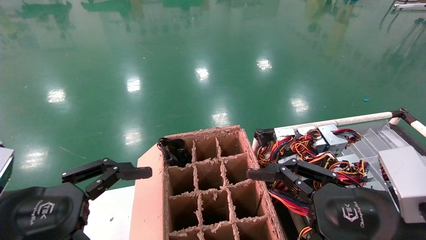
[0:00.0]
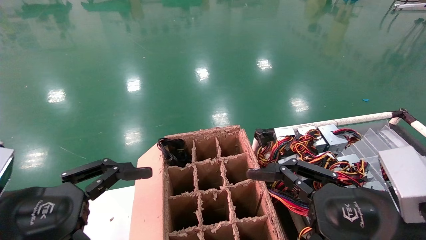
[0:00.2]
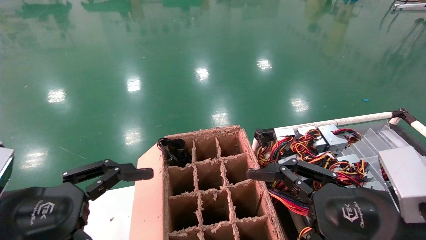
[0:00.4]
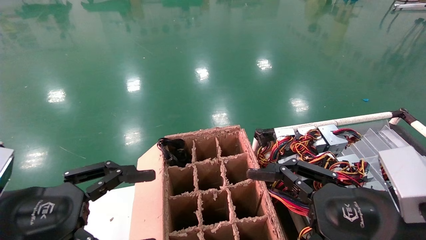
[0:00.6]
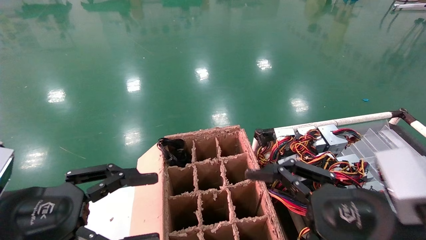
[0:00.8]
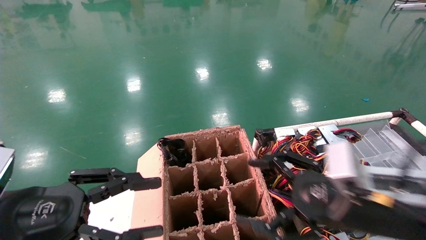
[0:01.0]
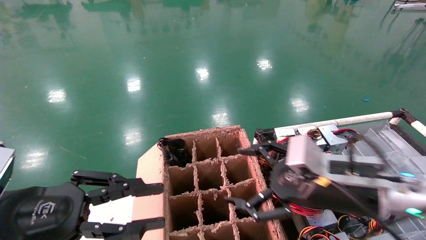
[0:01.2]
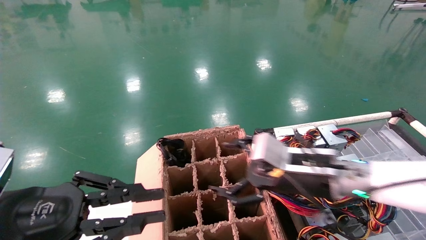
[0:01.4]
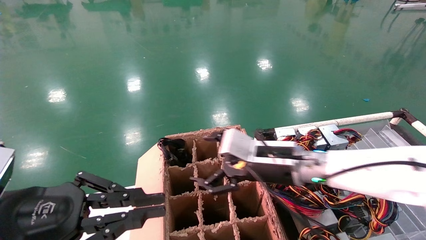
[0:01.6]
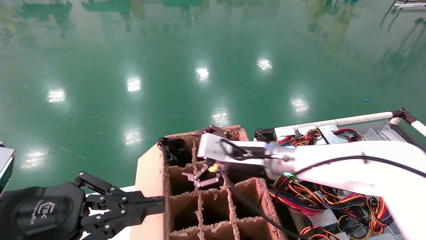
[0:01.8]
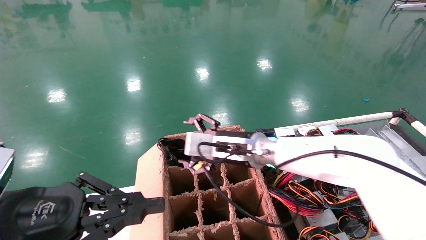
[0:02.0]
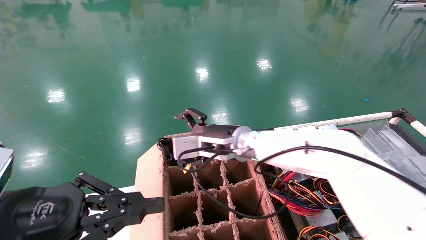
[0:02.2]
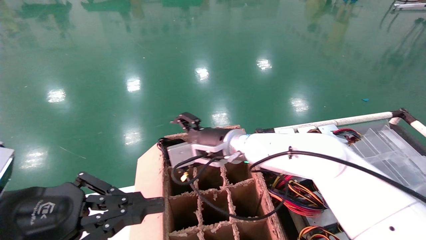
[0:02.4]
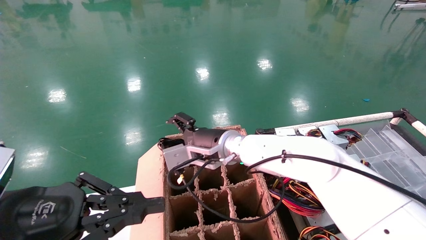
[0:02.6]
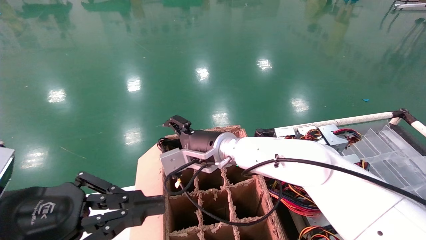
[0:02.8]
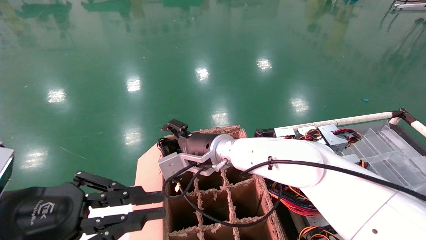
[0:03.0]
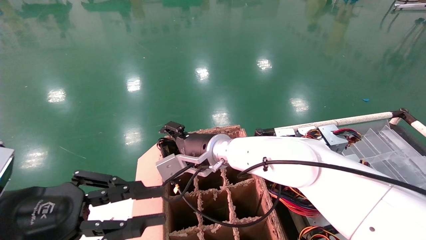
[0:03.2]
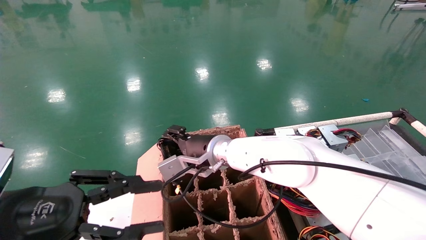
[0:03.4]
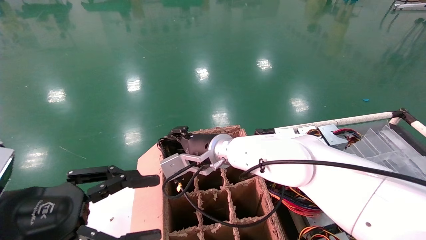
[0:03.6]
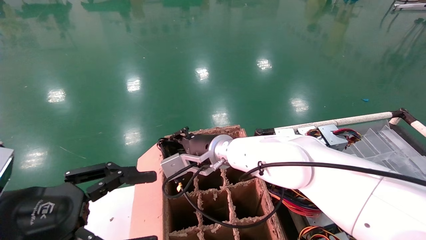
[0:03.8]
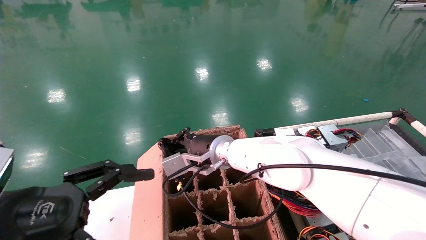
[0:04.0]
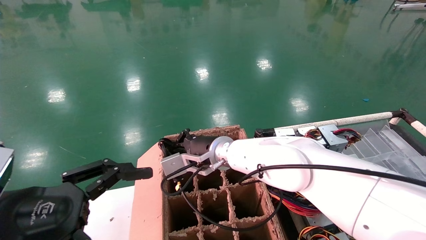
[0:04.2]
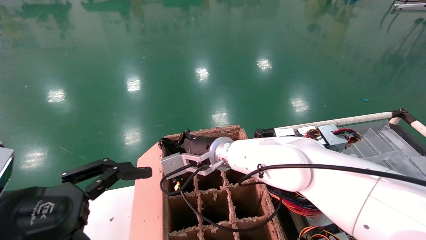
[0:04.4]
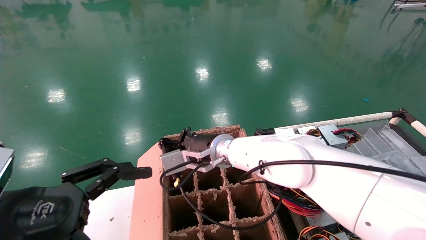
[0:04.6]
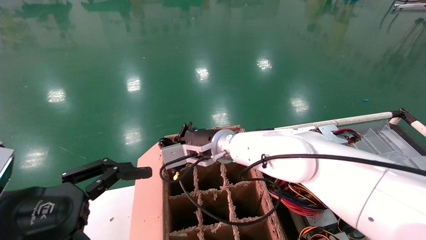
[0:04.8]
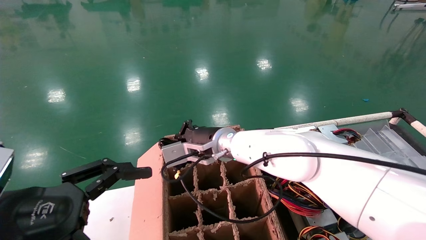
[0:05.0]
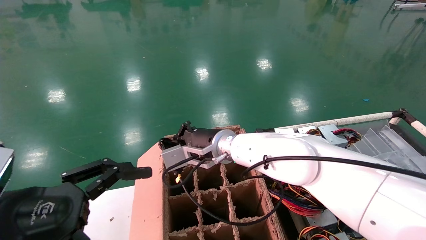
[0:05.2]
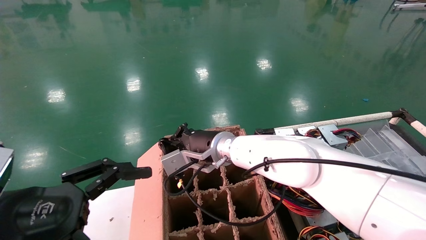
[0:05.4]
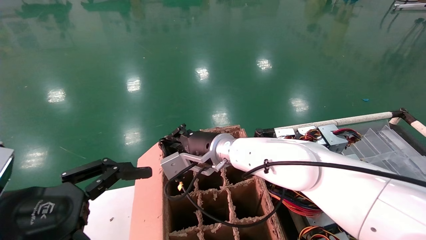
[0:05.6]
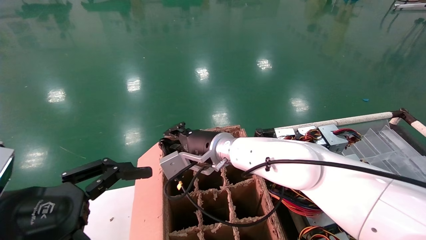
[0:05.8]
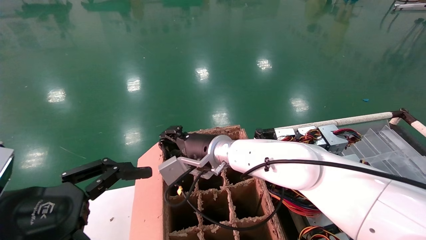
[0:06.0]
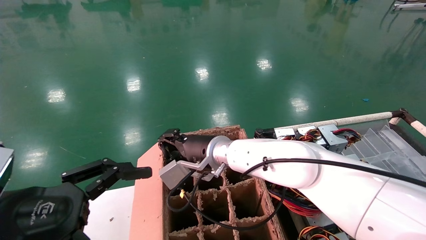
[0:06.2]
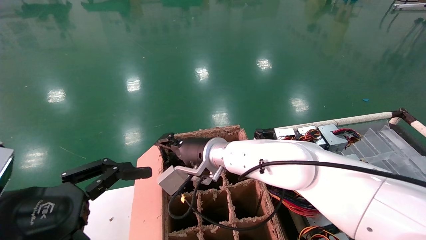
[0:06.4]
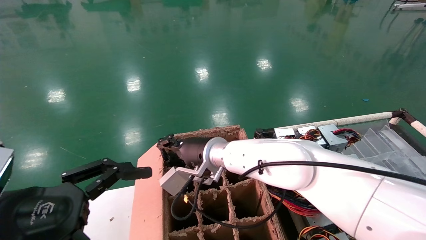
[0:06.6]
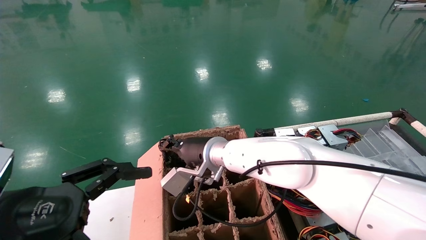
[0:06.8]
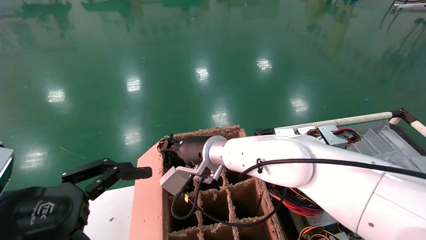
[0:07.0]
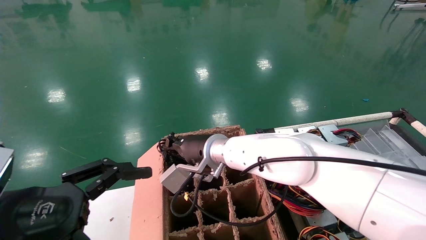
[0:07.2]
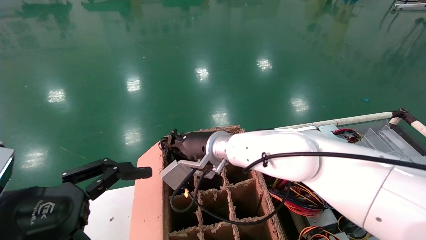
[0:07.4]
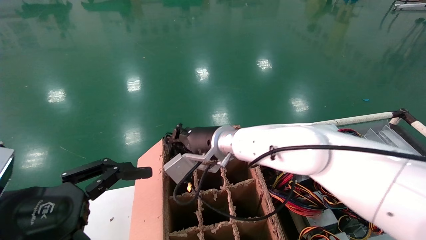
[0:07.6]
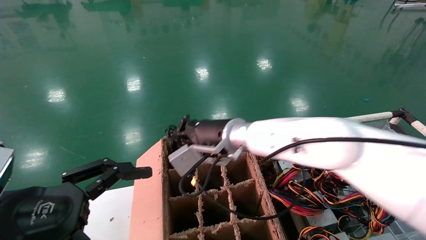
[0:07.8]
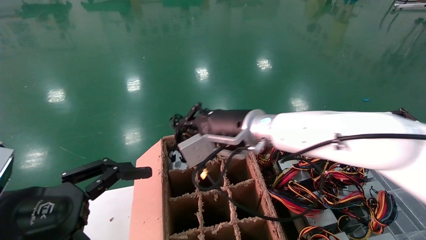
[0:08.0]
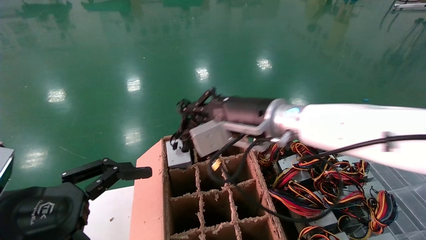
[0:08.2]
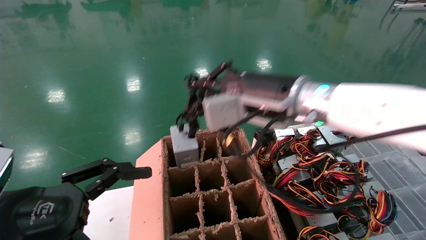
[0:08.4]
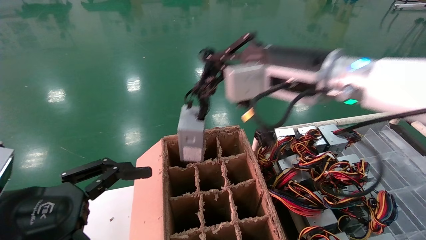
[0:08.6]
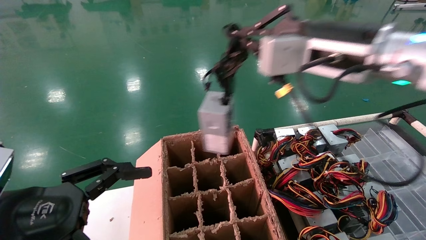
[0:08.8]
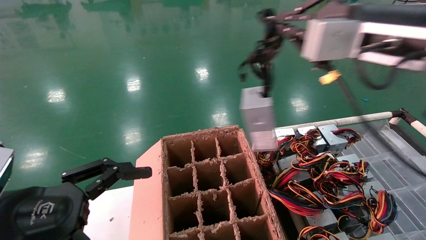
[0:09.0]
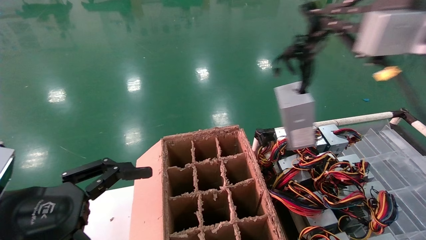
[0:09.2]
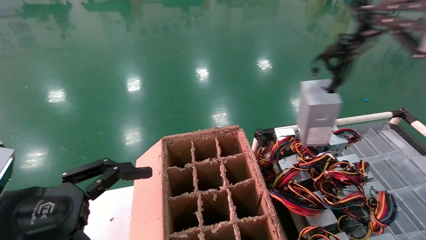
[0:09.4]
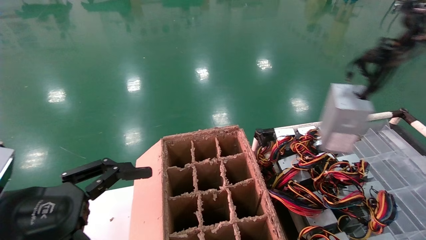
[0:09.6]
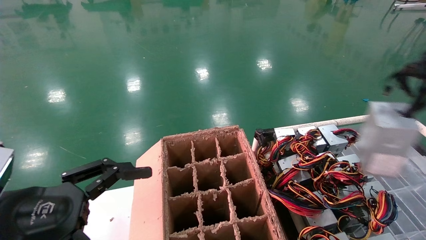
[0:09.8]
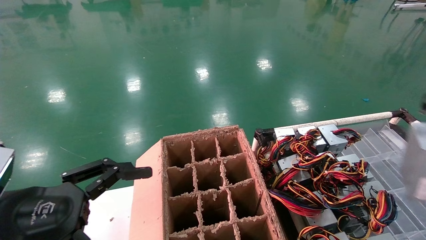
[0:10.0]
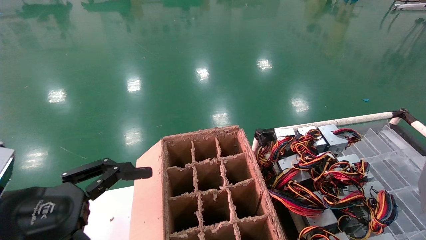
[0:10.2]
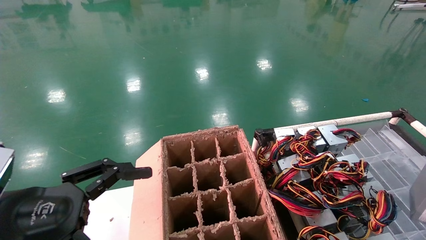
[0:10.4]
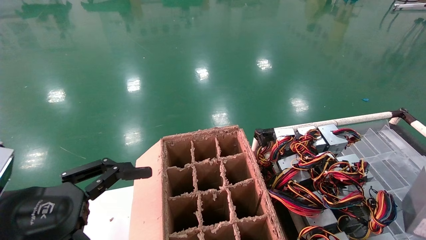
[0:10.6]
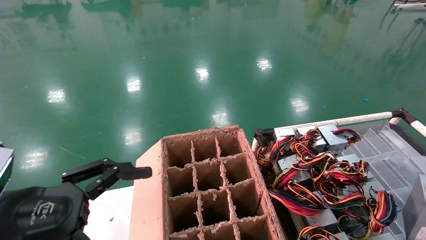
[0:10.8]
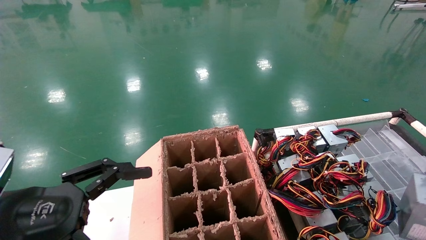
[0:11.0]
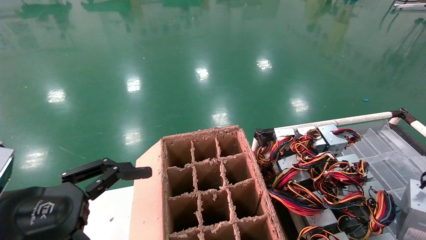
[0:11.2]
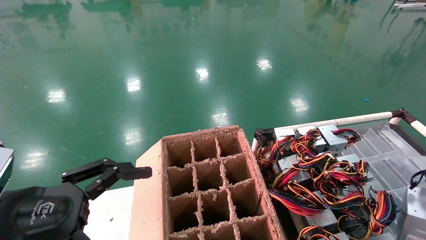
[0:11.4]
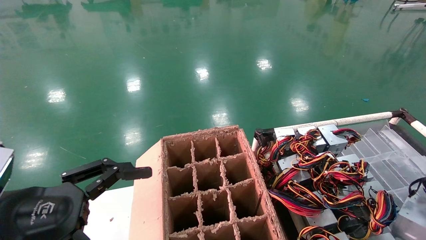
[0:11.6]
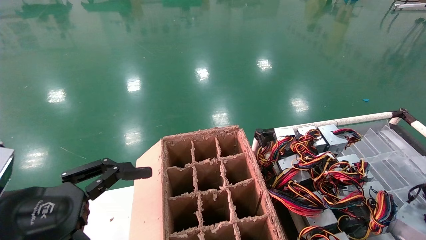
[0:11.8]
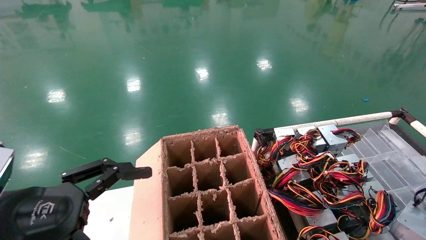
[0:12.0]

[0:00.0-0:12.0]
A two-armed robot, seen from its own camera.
Step, 0:00.8 to 0:07.0: Grab and lift the power supply from the large box.
0:00.0 to 0:01.6: The right gripper moves forward and to the left, some 20 cm; the left gripper closes.
0:01.6 to 0:03.0: The right gripper heads to the left and forward, covering some 15 cm.
0:03.0 to 0:04.4: The left gripper opens up, while the right gripper closes its fingers.
0:04.4 to 0:06.0: The grippers move only a little.
0:06.0 to 0:07.6: The right gripper closes.
0:07.6 to 0:09.0: The right gripper moves to the right, upward and backward, approximately 35 cm.
0:09.0 to 0:10.4: The right gripper travels to the right, backward and downward by roughly 35 cm.
0:10.4 to 0:12.0: The right gripper is displaced downward by approximately 10 cm.

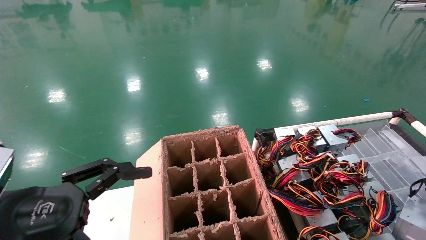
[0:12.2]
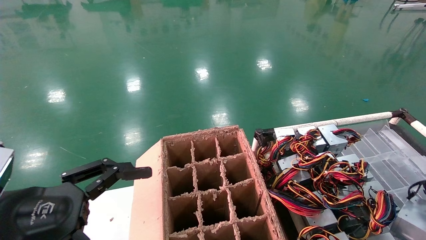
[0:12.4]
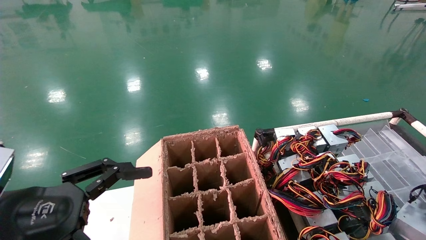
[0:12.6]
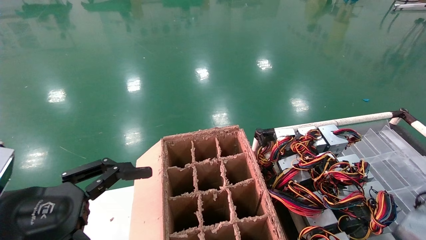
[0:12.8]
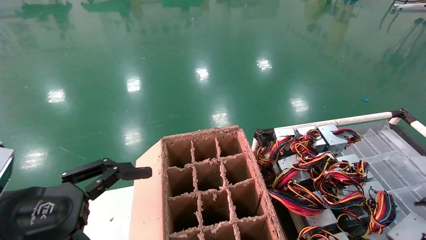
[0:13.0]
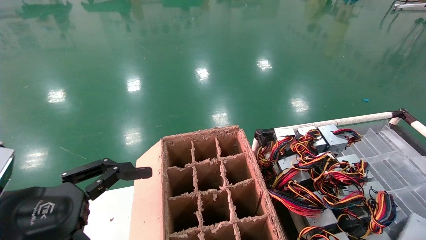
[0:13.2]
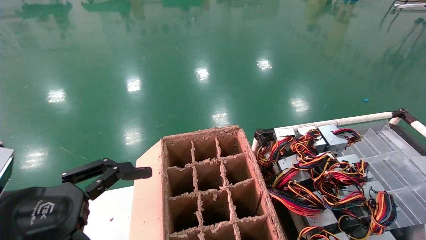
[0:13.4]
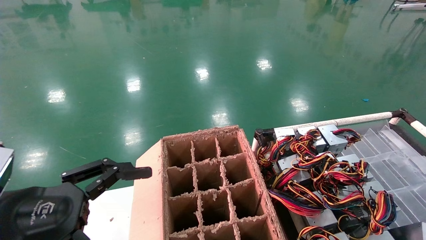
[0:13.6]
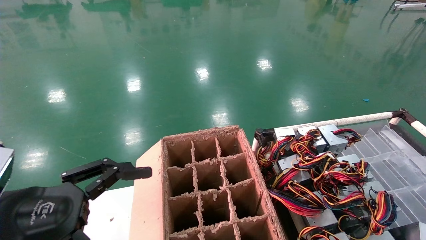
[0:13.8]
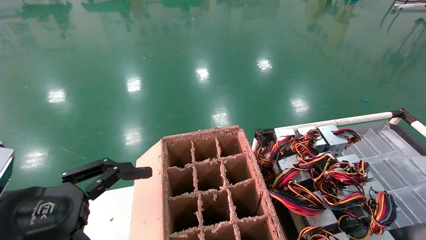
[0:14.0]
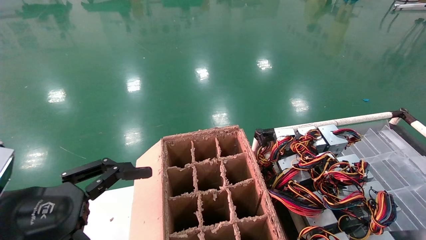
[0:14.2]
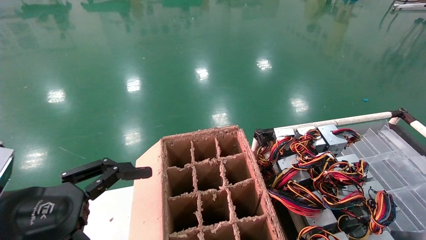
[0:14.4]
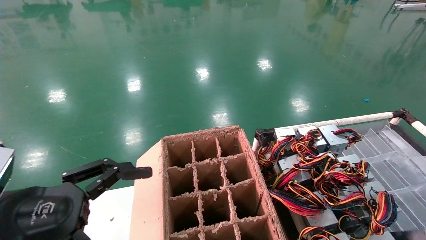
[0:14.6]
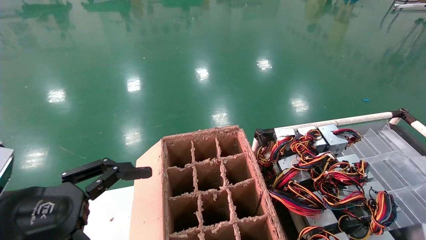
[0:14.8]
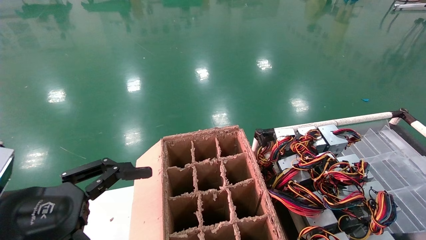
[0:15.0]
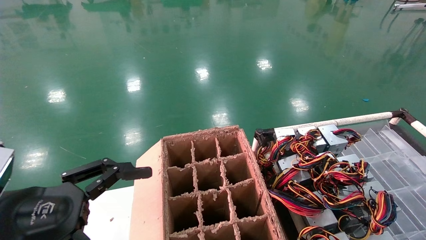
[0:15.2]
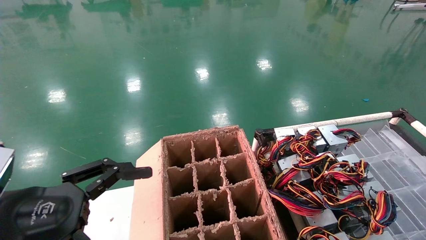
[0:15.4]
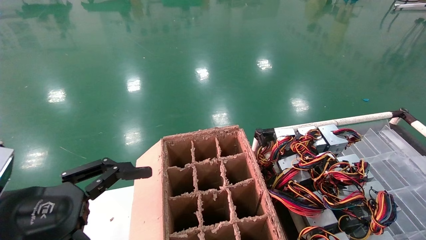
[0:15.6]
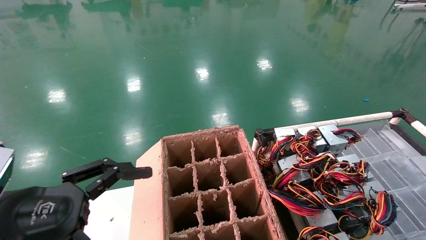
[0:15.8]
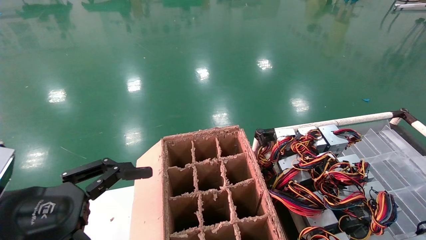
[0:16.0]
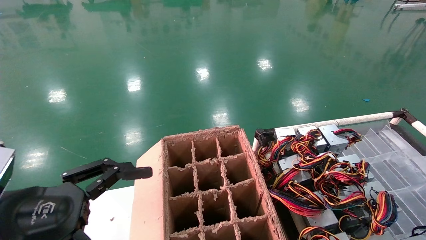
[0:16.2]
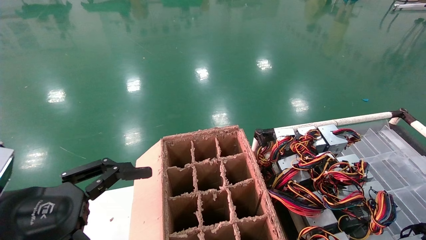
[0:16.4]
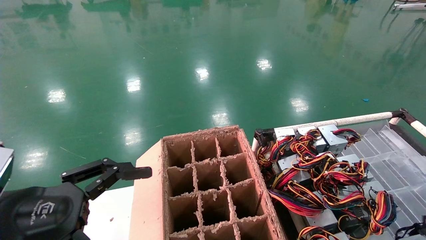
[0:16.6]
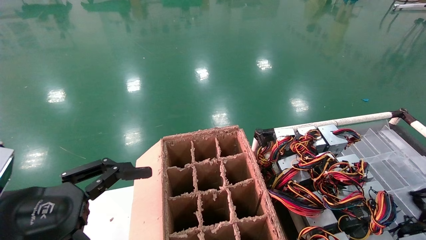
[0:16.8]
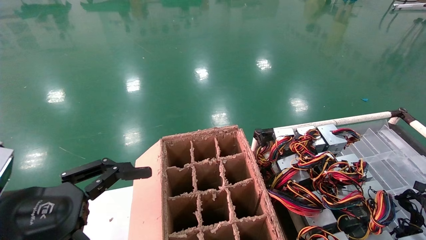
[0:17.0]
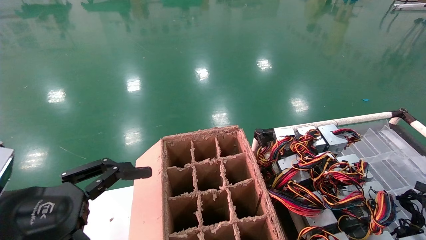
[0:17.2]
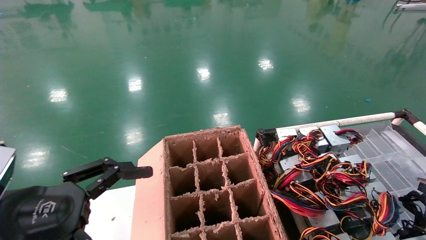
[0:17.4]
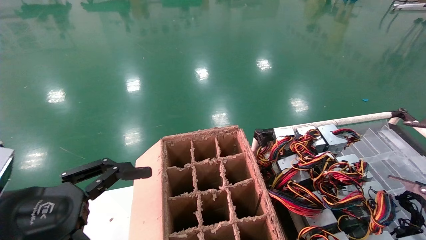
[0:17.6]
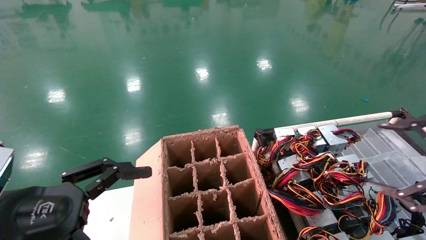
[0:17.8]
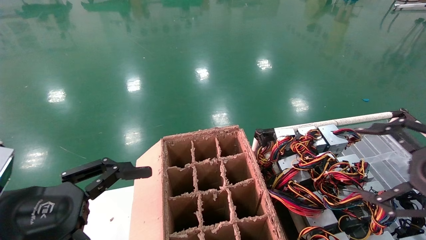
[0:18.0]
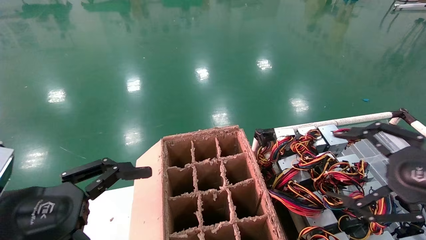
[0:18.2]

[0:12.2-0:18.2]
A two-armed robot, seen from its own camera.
Step, 0:12.2 to 0:16.6: Place the power supply on the operating table.
0:12.2 to 0:13.8: The right gripper heads backward, covering approximately 5 cm.
0:16.6 to 0:18.2: The right gripper goes roughly 20 cm to the left, upward and forward, and opens.
